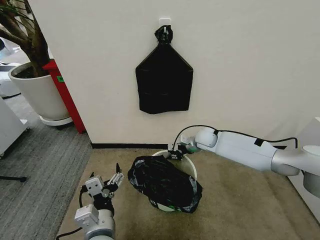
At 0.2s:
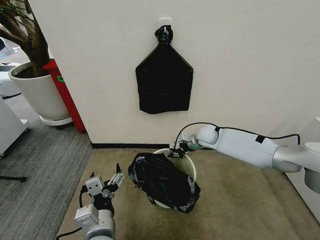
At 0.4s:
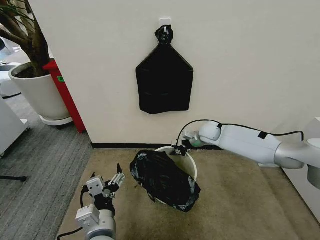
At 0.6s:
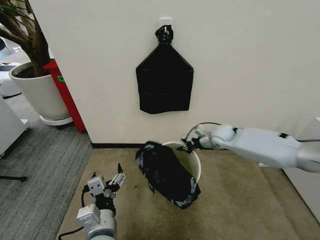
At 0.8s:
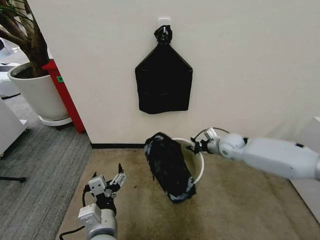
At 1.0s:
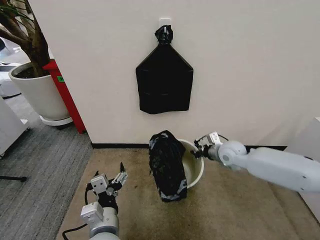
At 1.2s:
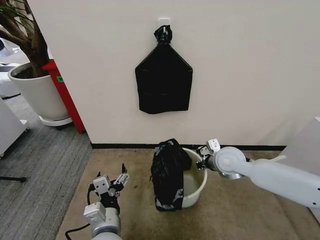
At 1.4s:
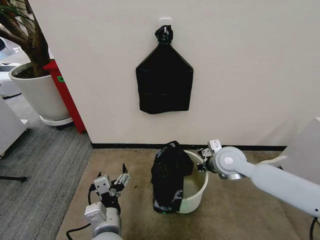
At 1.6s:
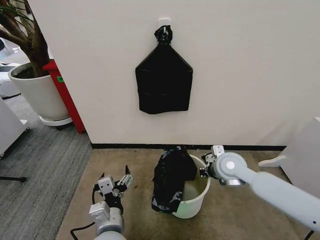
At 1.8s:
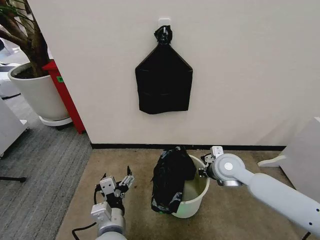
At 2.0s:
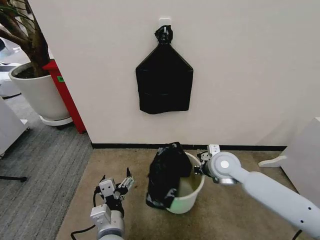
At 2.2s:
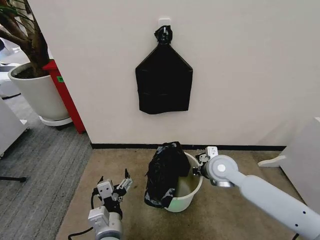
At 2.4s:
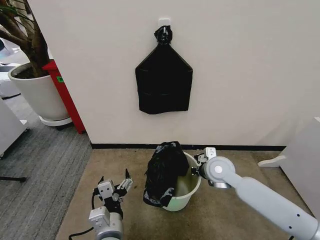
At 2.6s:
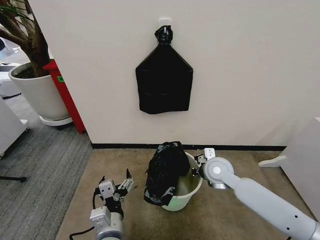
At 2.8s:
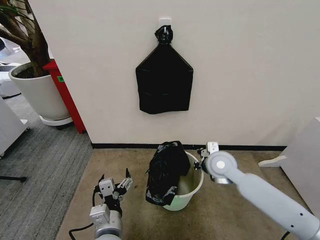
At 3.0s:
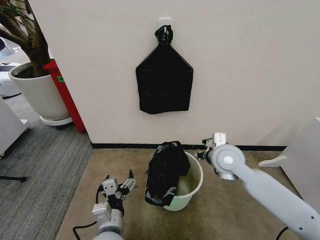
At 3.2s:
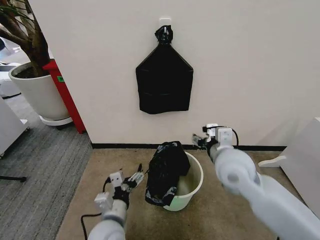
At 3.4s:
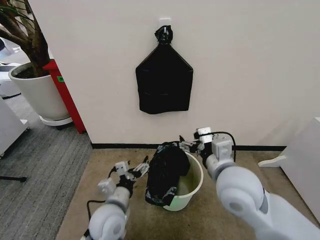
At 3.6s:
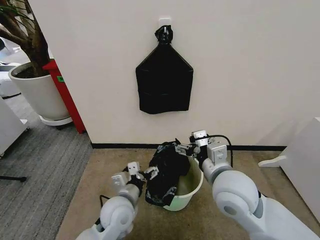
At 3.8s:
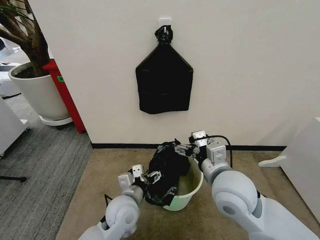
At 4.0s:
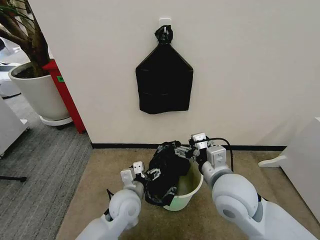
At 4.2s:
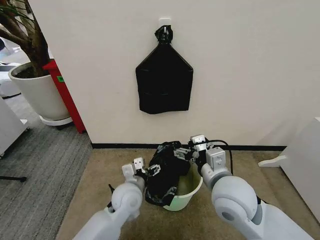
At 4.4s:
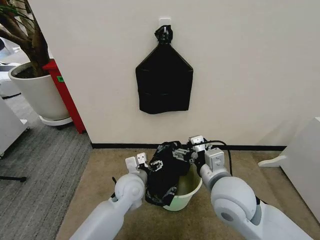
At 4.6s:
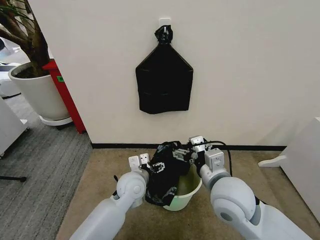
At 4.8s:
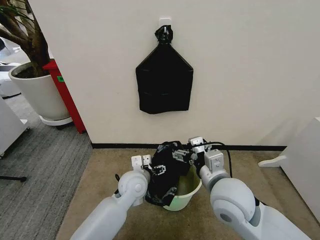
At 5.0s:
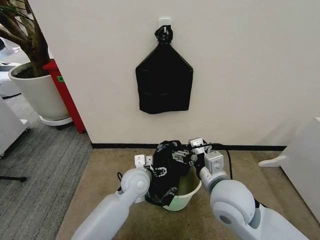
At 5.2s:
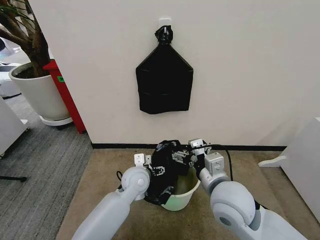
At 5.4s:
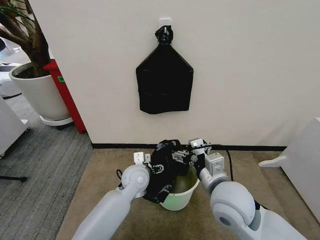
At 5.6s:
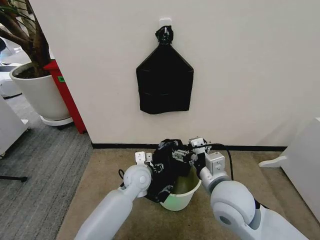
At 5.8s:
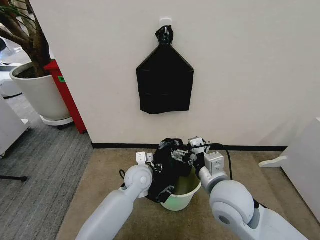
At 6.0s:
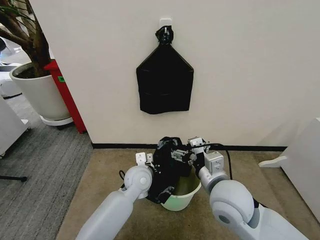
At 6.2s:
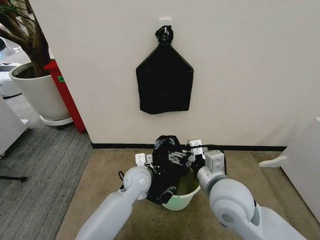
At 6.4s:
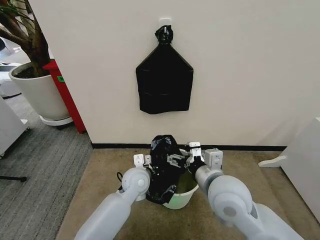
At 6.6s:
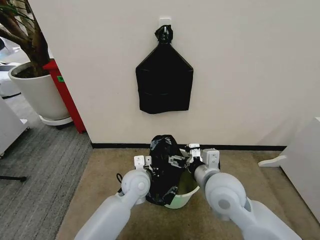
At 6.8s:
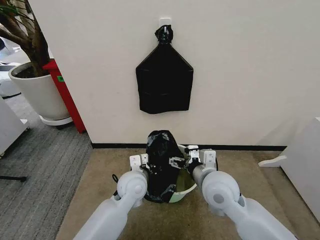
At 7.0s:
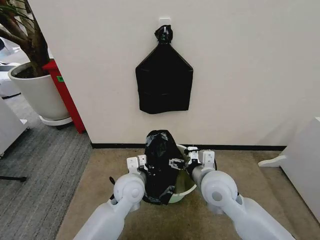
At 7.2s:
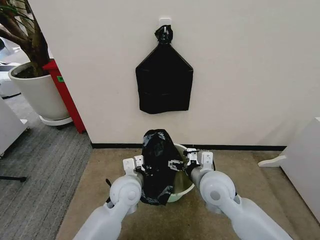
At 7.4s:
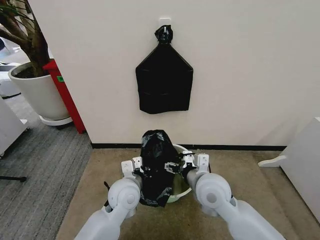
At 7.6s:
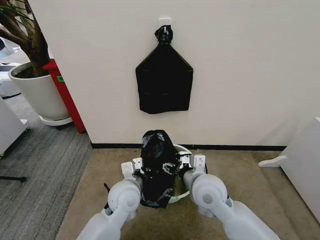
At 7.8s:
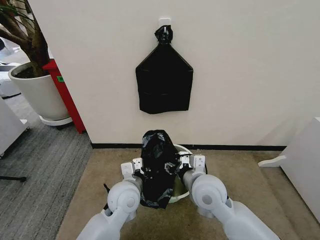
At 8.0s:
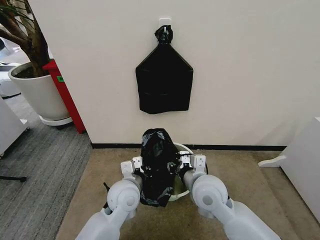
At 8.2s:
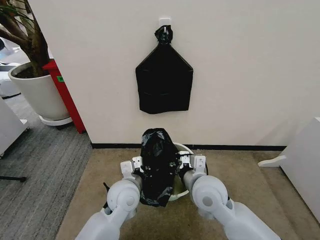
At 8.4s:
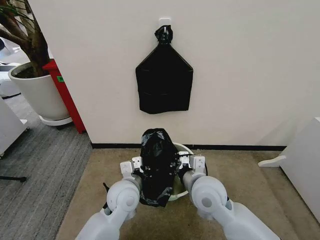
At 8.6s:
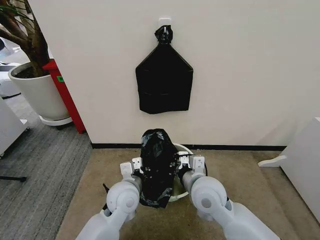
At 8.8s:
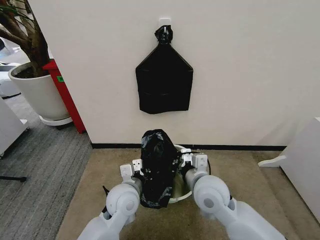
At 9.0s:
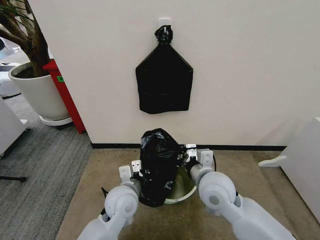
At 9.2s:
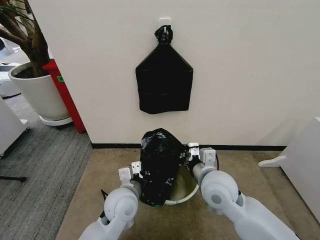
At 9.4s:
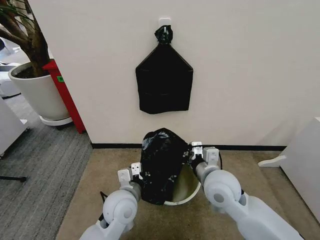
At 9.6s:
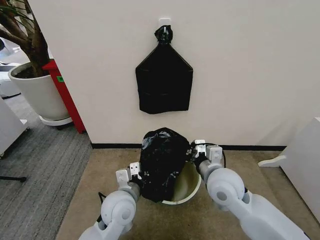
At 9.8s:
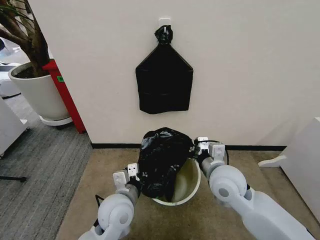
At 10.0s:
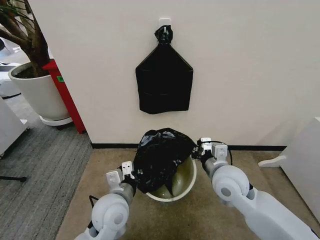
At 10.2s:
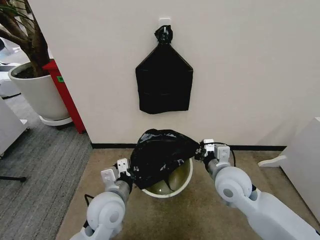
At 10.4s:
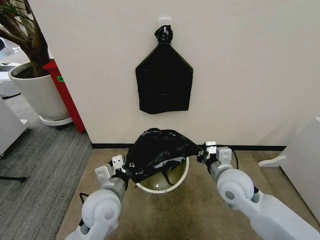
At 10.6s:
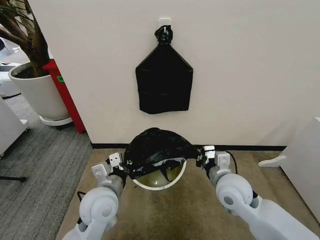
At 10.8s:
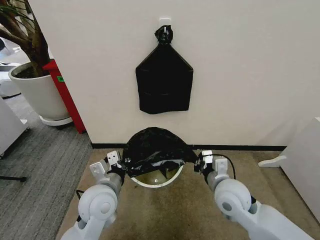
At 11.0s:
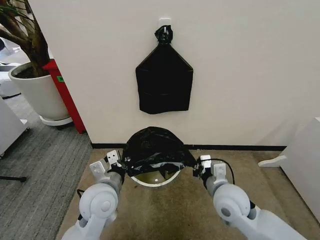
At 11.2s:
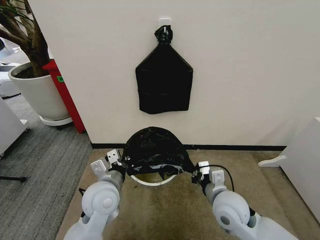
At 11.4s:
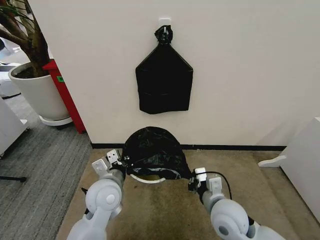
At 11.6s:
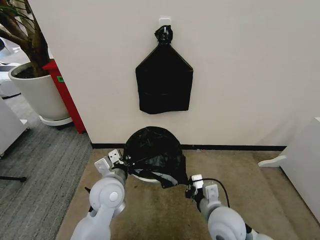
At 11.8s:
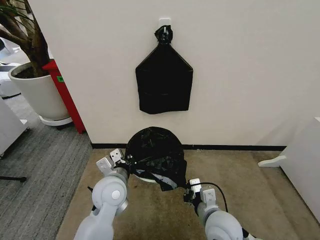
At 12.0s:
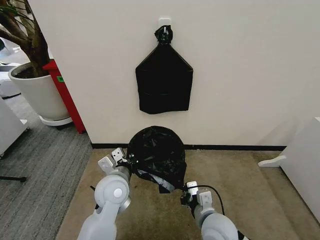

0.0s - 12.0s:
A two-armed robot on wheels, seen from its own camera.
Task of the whole recording: Place the garbage bag over the trash bin.
0.0s - 1.6s: The right gripper heads backward, covering about 15 cm.
1.6s - 3.0s: The right gripper moves approximately 5 cm, and opens its fingers.
3.0s - 4.4s: The left gripper heads forward, covering some 15 cm, while the right gripper is displaced backward by approximately 10 cm, and opens its fingers.
4.4s - 6.0s: The left gripper closes up.
6.0s - 7.6s: The left gripper travels backward by about 5 cm, while the right gripper changes place by some 5 cm.
7.6s - 9.0s: The right gripper closes.
9.0s - 10.4s: The right gripper heads to the right, covering roughly 5 cm; the left gripper shifts by some 5 cm.
10.4s - 12.0s: The left gripper changes place by some 5 cm. Meanwhile the right gripper travels backward, downward and to the left by about 15 cm.

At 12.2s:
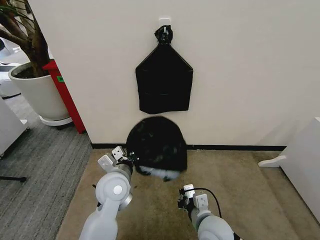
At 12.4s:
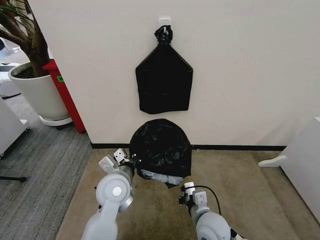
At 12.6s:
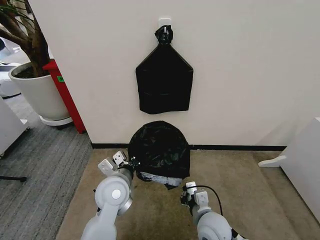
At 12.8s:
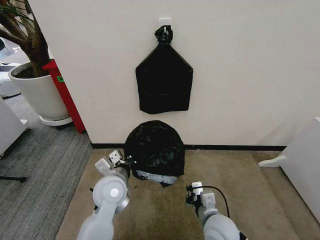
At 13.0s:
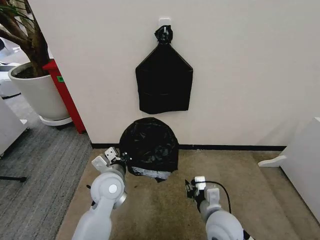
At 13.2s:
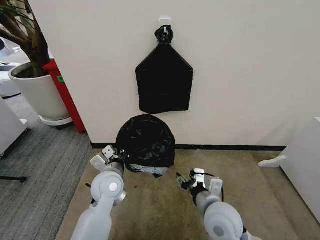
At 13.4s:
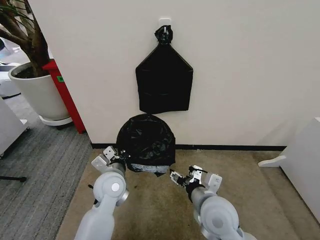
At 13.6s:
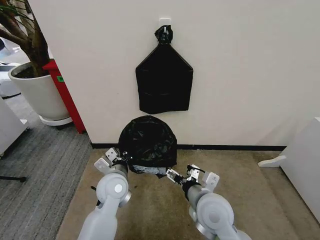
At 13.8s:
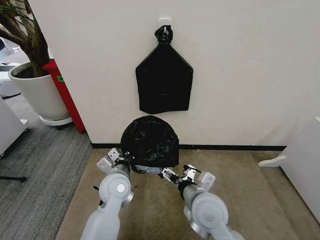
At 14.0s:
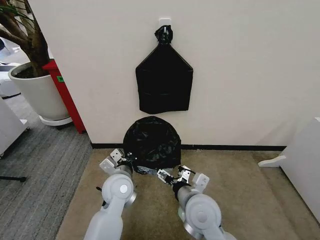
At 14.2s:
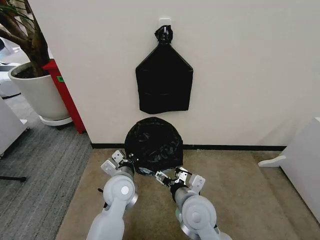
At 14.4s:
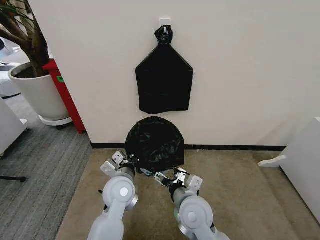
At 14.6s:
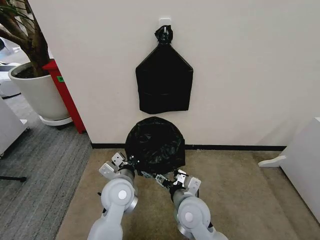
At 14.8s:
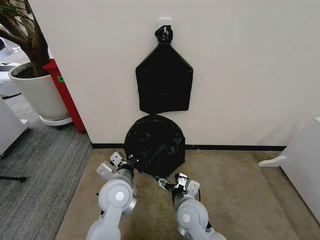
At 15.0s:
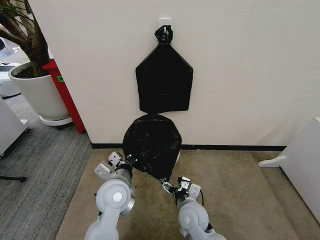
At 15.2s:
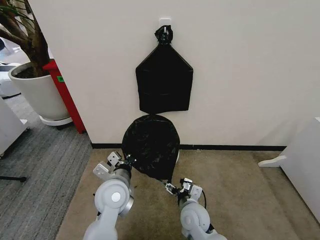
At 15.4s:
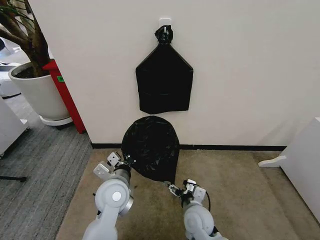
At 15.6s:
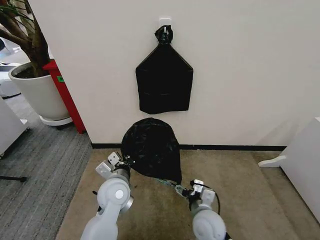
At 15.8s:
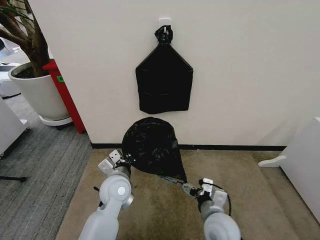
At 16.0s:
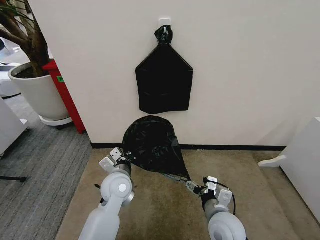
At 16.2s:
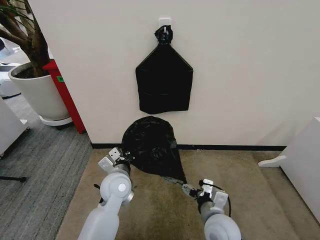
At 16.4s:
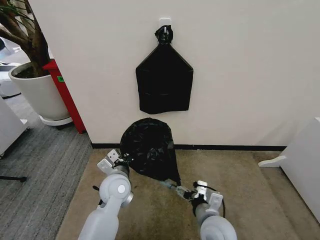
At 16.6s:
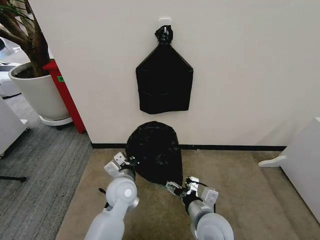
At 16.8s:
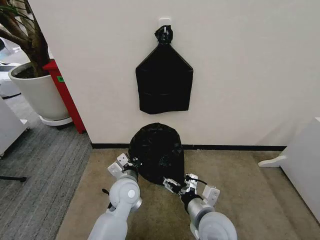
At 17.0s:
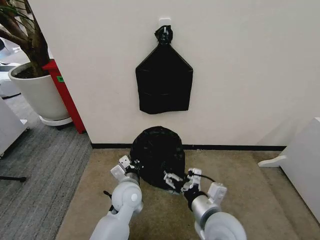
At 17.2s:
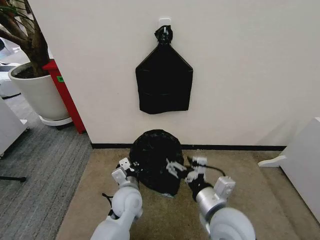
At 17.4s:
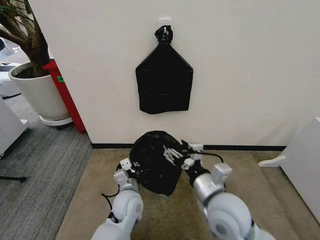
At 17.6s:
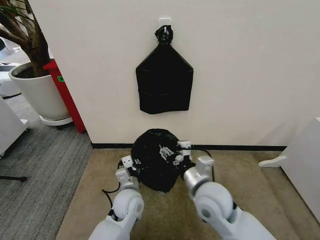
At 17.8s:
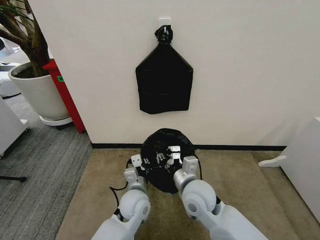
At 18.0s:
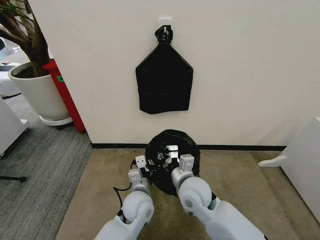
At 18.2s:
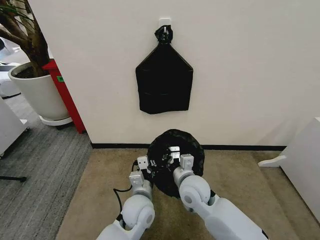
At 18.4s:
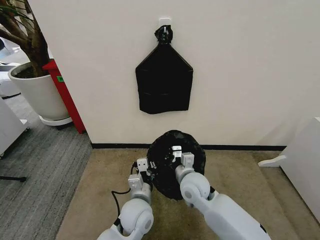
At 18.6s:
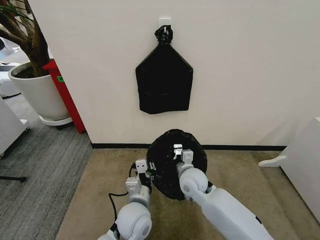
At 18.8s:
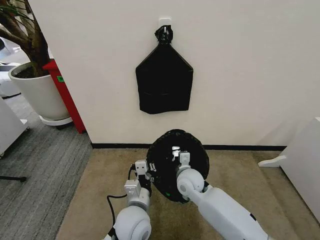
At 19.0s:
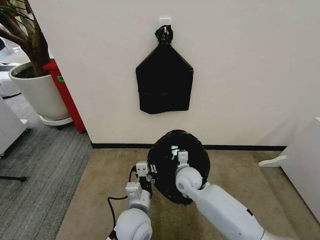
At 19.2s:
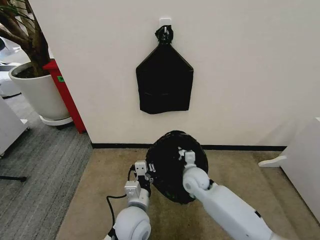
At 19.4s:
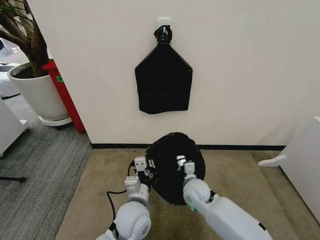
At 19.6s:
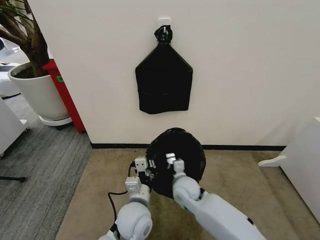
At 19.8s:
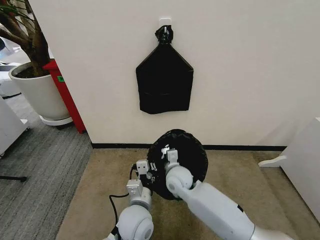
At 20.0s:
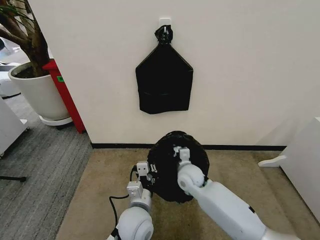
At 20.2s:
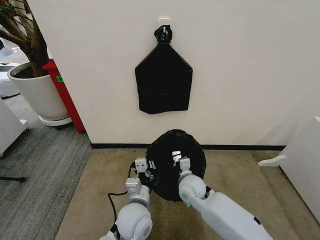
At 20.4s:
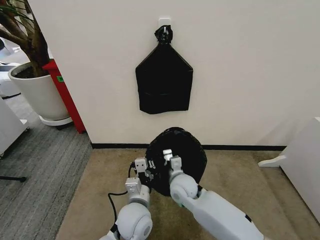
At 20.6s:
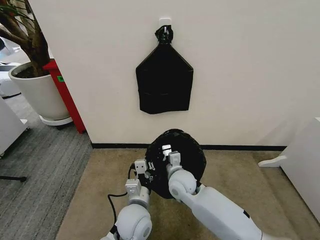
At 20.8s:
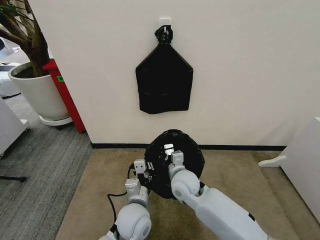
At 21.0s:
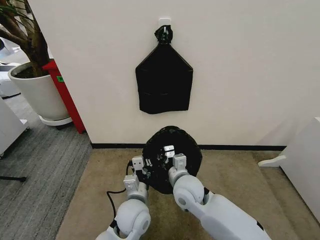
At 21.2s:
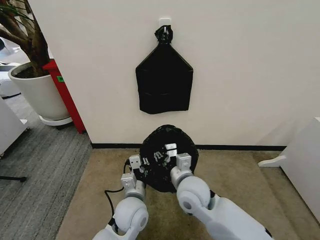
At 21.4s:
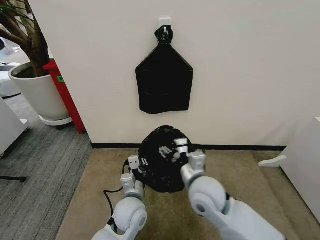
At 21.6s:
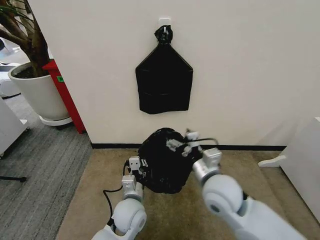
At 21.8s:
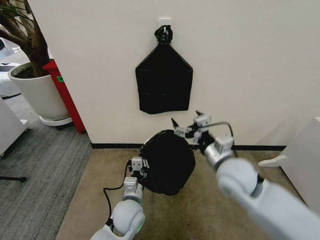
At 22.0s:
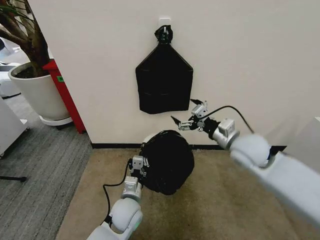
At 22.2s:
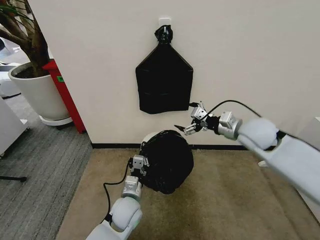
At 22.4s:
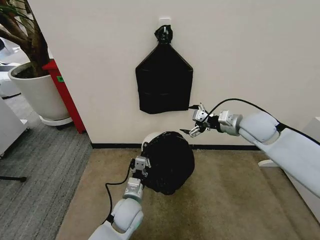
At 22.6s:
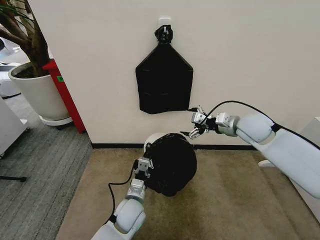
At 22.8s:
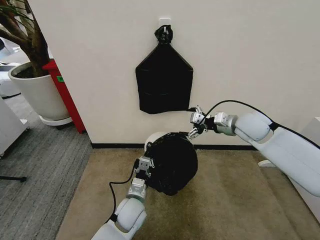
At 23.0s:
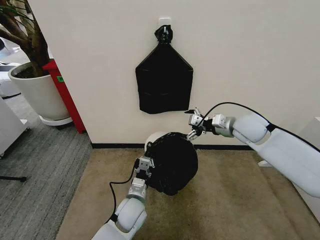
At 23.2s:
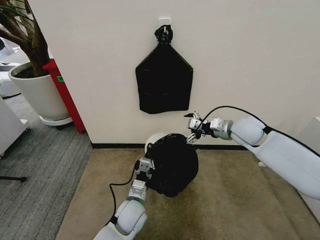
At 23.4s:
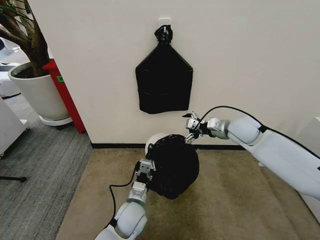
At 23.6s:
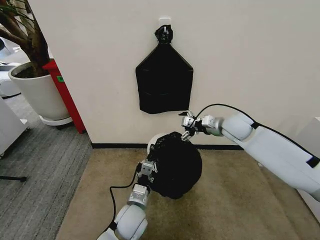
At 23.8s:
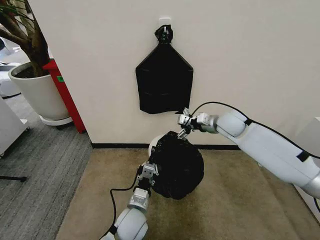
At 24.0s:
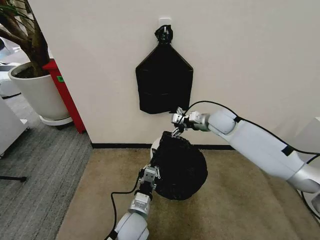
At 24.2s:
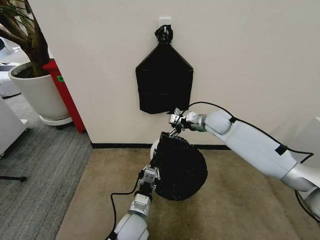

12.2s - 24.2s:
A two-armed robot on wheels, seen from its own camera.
Task of the whole recording: Place the garbage bag over the trash bin.
12.2s - 13.8s: The right gripper heads upward, covering about 5 cm, and opens up.
13.8s - 15.2s: The right gripper moves downward, about 15 cm.
15.2s - 16.6s: The left gripper shifts by some 5 cm. Meanwhile the right gripper goes roughly 10 cm upward and backward.
16.6s - 18.2s: The left gripper is displaced to the right by about 5 cm, while the right gripper heads forward, covering roughly 10 cm, and closes up.
18.2s - 19.8s: The right gripper shifts approximately 5 cm forward.
19.8s - 21.2s: The right gripper travels backward and upward by some 10 cm, and opens its fingers.
21.2s - 22.6s: The right gripper moves to the right, forward and upward, roughly 30 cm, and opens, while the left gripper is displaced downward by approximately 5 cm.
22.6s - 24.2s: The right gripper travels forward, to the left and downward by approximately 10 cm. Meanwhile the left gripper moves about 5 cm.
